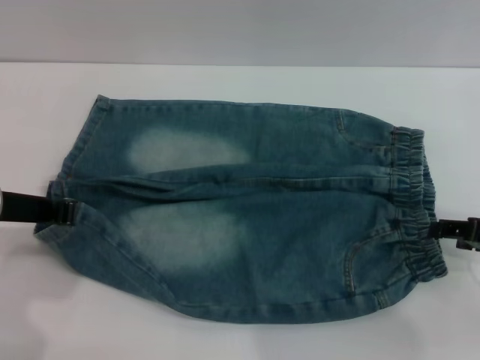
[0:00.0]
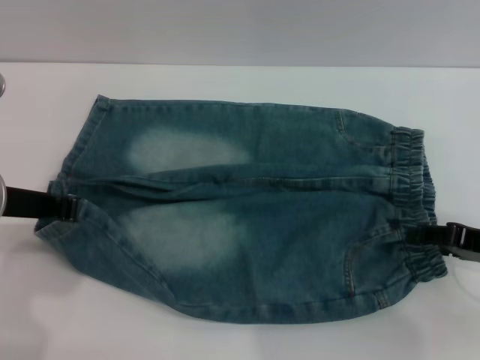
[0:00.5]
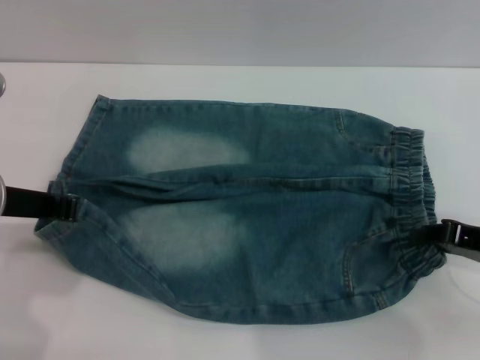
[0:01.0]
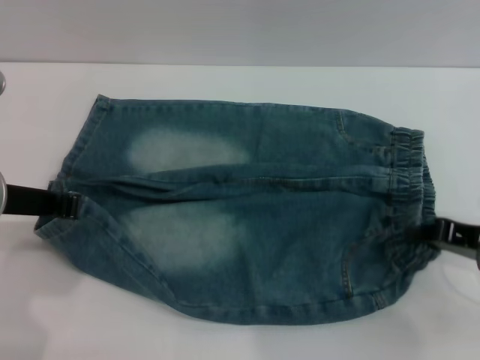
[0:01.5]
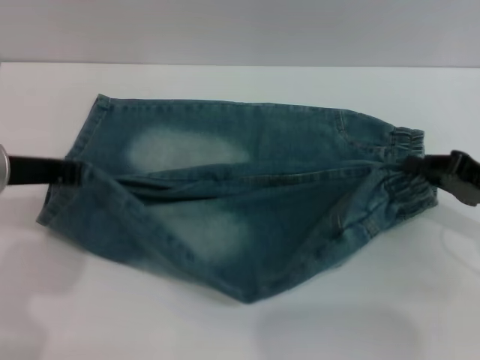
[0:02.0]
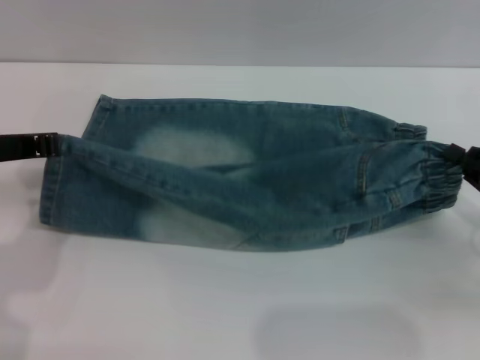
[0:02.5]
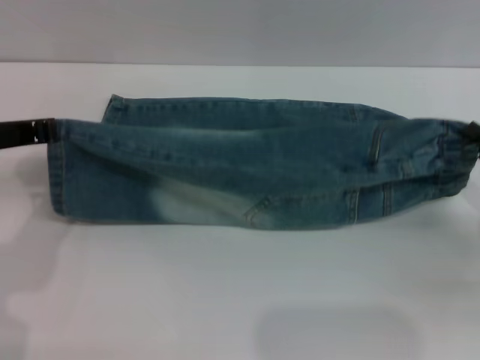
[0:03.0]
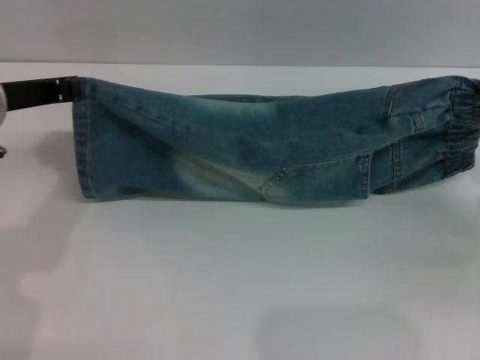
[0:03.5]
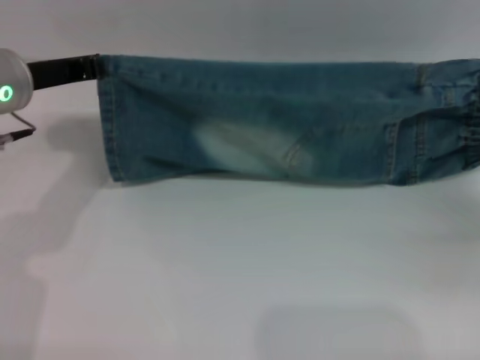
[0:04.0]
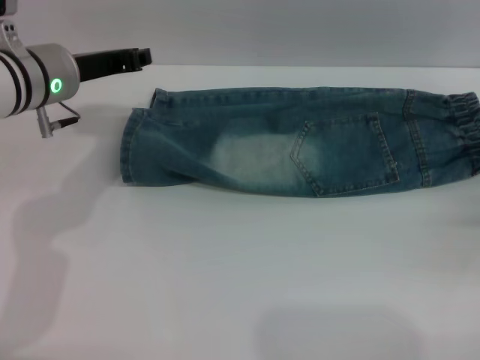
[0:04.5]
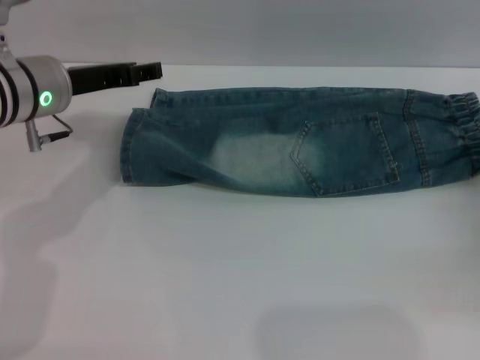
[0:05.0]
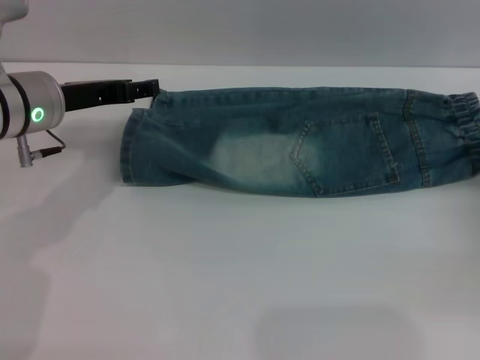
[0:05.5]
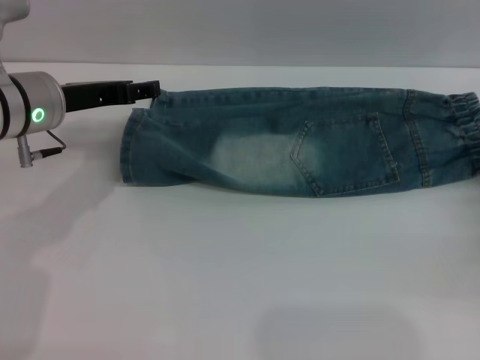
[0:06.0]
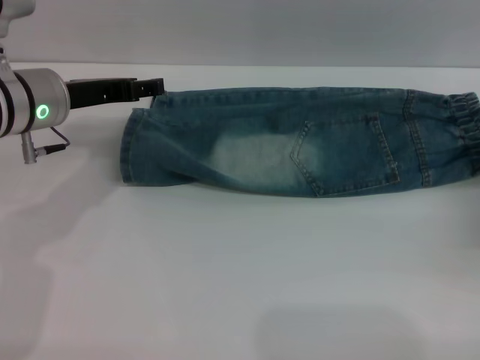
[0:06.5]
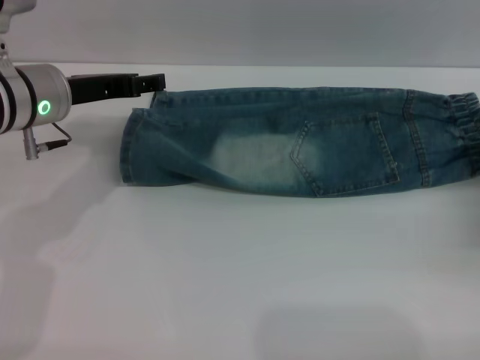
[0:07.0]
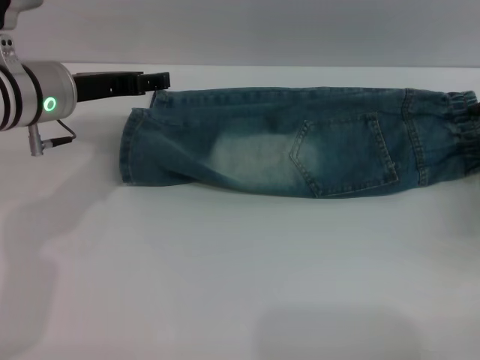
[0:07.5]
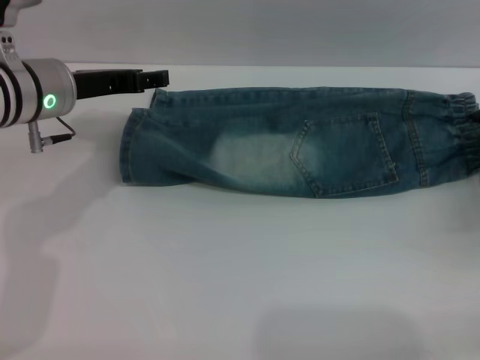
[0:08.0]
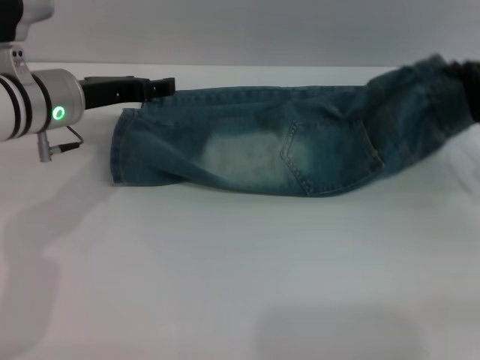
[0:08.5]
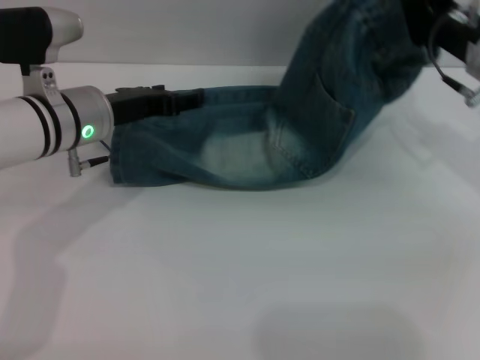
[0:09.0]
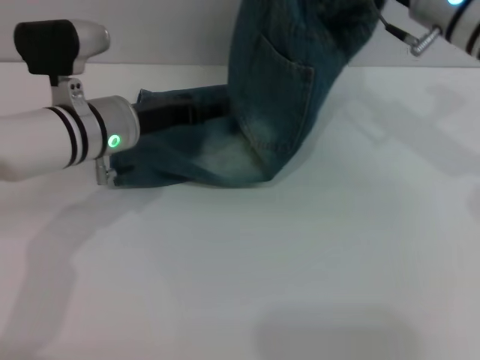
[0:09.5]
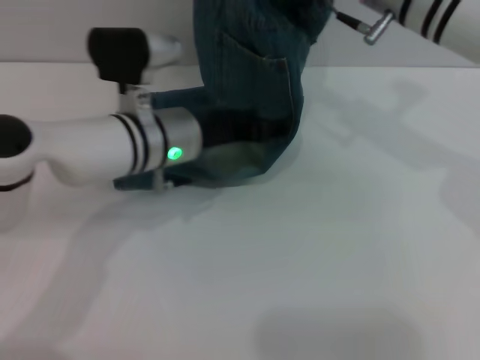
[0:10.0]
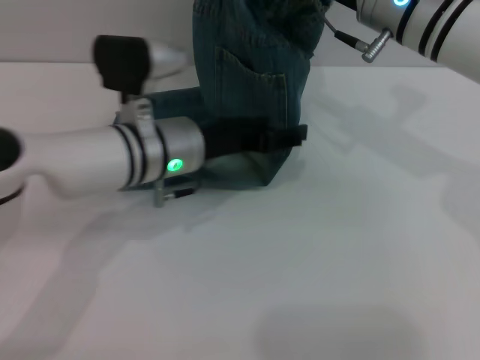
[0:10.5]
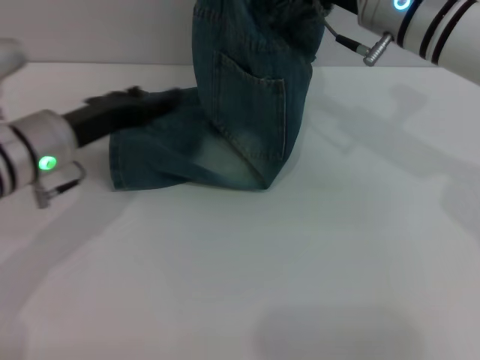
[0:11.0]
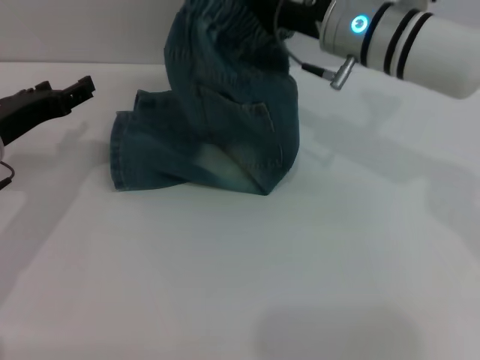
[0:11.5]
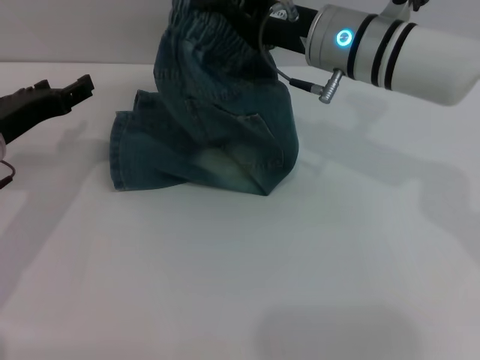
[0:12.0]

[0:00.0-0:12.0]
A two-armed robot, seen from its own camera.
Step, 0:00.0 to 0:05.0: Fold the bottom of the pants upward with both grippers.
0:00.0 to 0:02.0: The right gripper closes its fingers.
0:02.0 to 0:04.0: The right gripper moves to the right, roughly 5 cm. The left gripper heads forward, covering some 10 cm.
0:04.0 to 0:06.0: The right gripper opens its fingers. The left gripper opens.
0:06.0 to 0:08.0: The right gripper shifts by approximately 5 cm.
0:08.0 to 0:10.0: The right gripper travels to the left, upward and forward by about 30 cm, and closes, while the left gripper goes roughly 10 cm to the right.
0:10.0 to 0:12.0: The left gripper moves to the left, roughly 15 cm, while the right gripper shifts by roughly 5 cm.

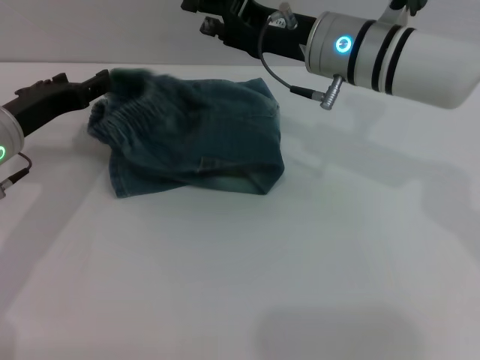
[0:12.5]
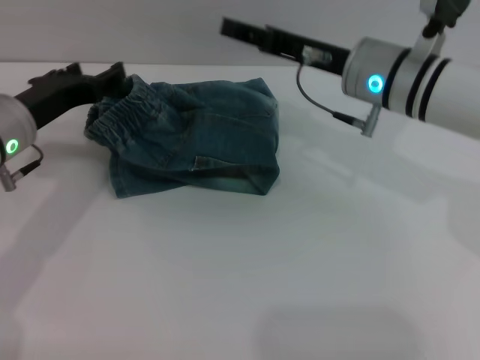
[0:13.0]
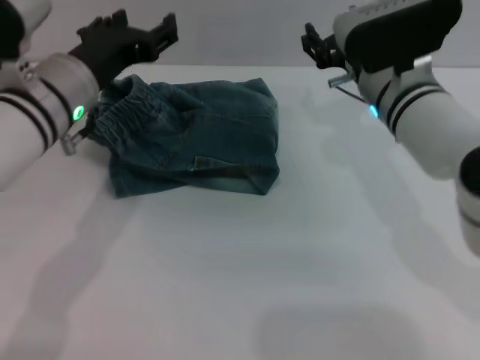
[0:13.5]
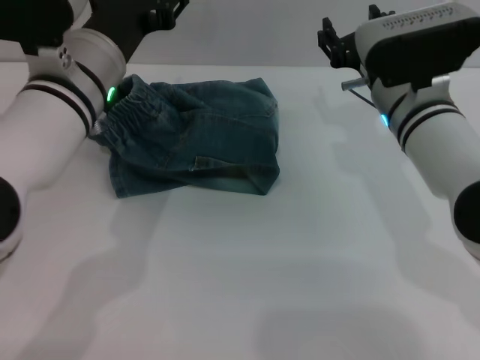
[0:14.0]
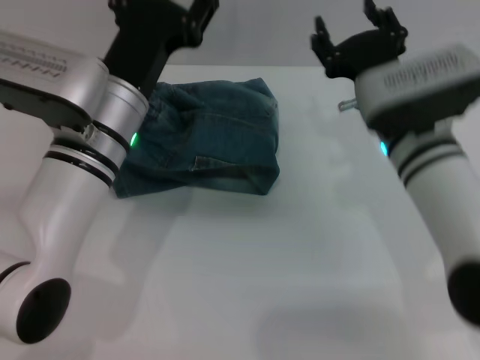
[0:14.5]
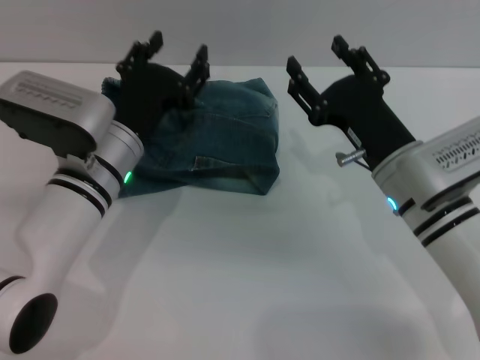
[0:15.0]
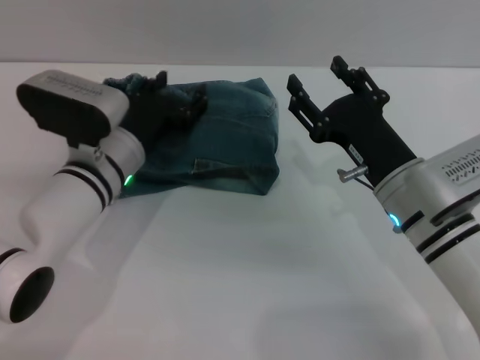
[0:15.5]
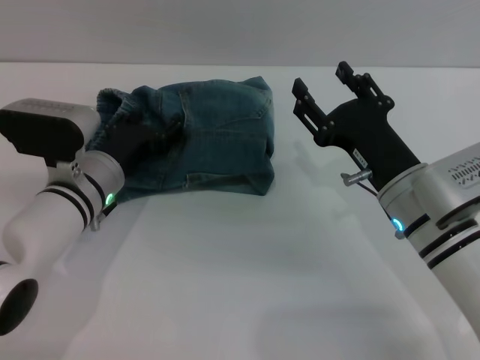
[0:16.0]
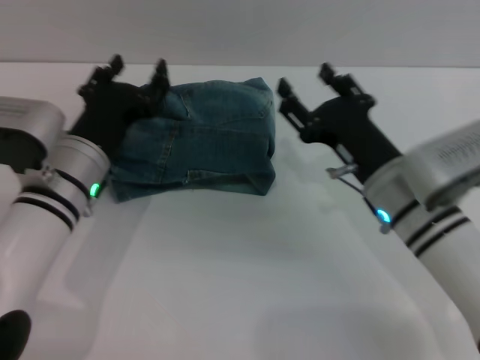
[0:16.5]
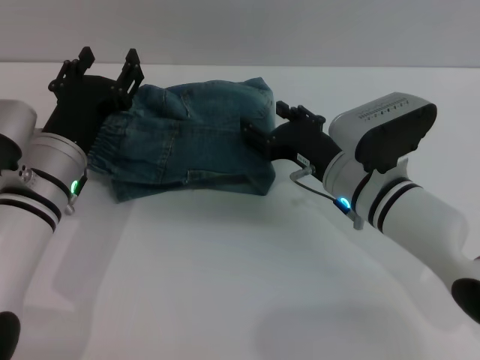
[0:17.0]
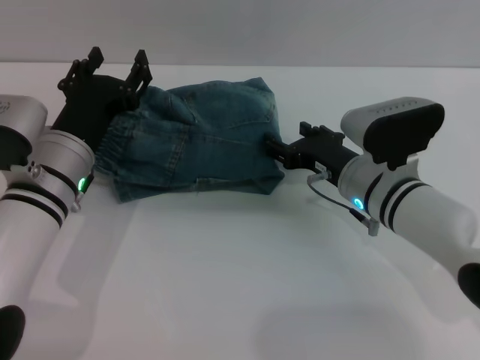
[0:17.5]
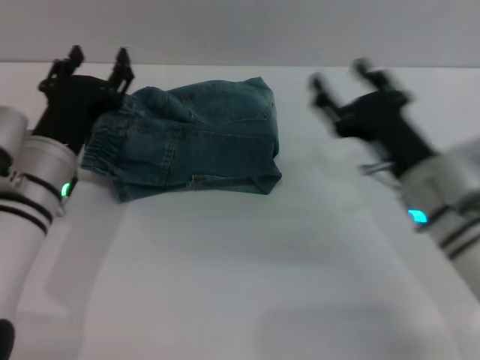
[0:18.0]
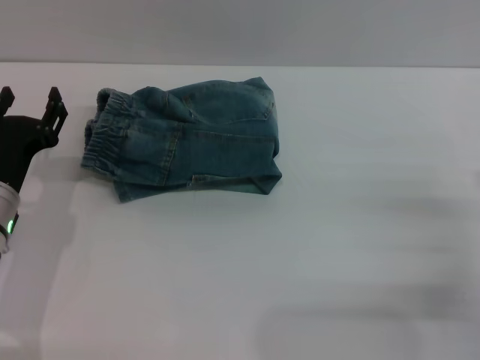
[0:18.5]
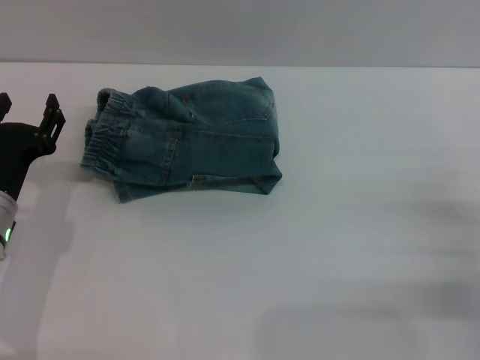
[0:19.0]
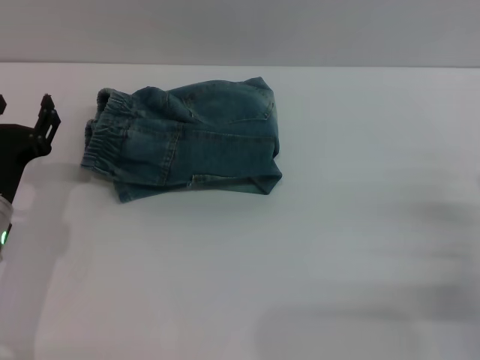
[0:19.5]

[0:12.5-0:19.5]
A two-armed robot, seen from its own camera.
0:12.5 to 0:14.5: The left gripper goes roughly 15 cm to the right. The right gripper goes about 10 cm backward and downward, and opens.
0:14.5 to 0:16.0: The right gripper heads backward, covering about 5 cm. Meanwhile the left gripper goes roughly 10 cm downward.
0:16.0 to 0:17.5: The right gripper heads forward, covering some 5 cm.
0:17.5 to 0:19.5: The right gripper is displaced to the right and backward by approximately 20 cm. Meanwhile the left gripper heads to the left, covering about 5 cm.
